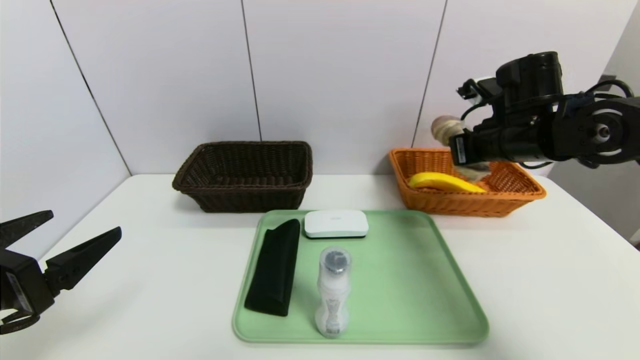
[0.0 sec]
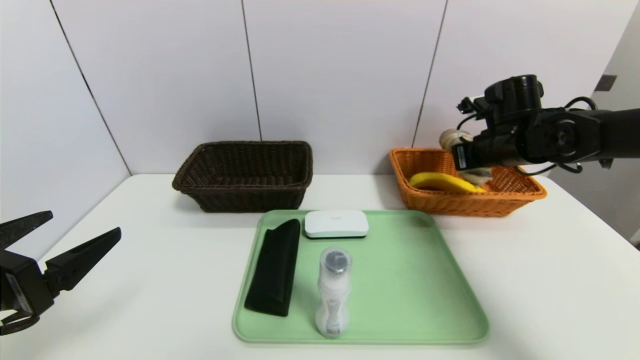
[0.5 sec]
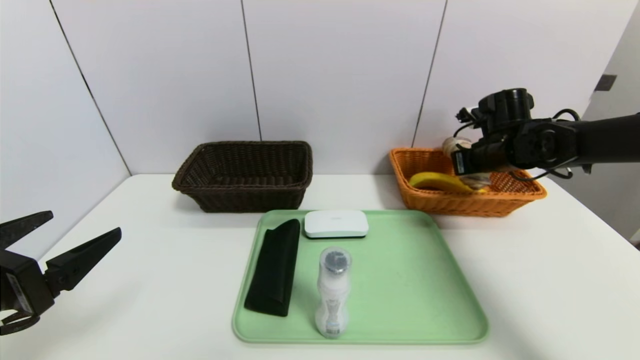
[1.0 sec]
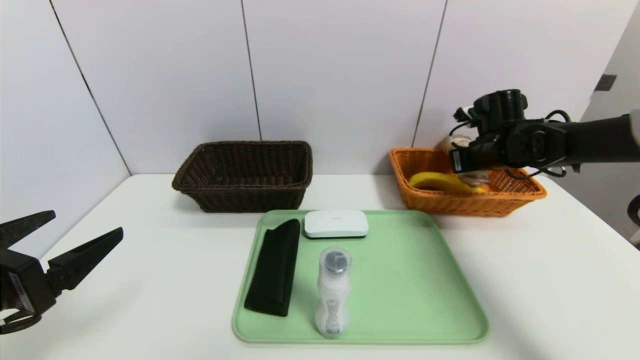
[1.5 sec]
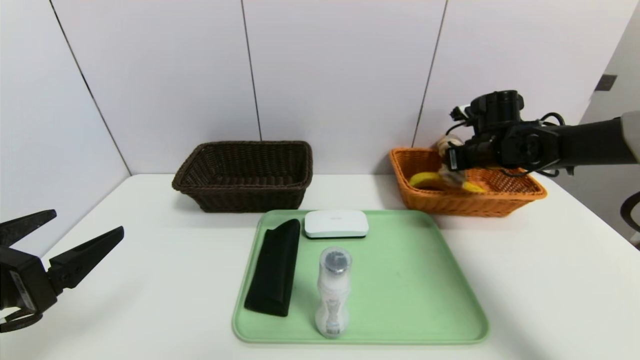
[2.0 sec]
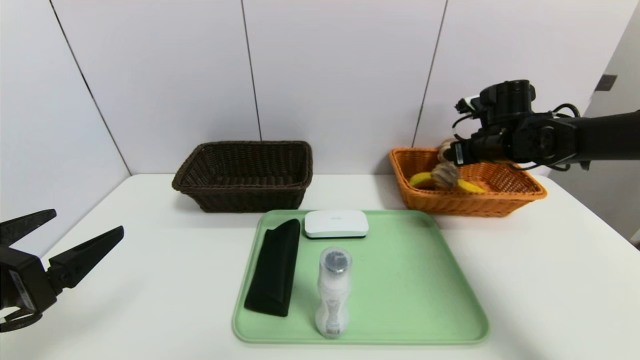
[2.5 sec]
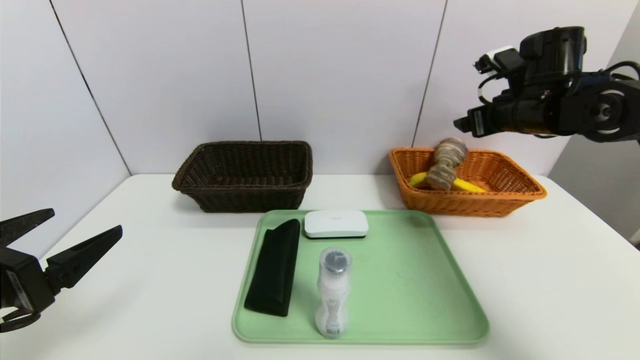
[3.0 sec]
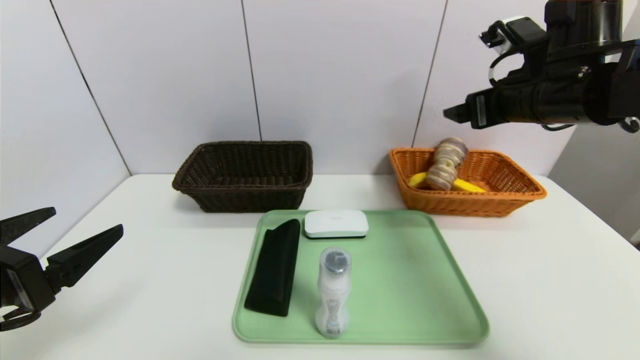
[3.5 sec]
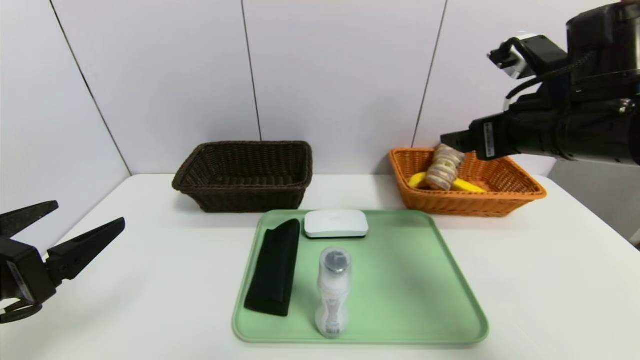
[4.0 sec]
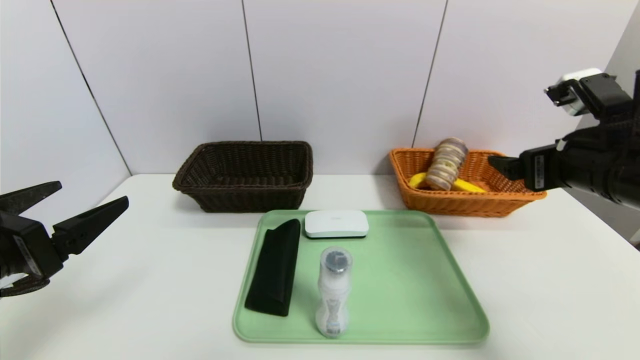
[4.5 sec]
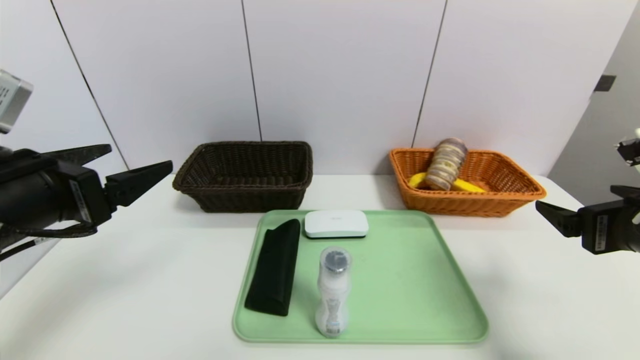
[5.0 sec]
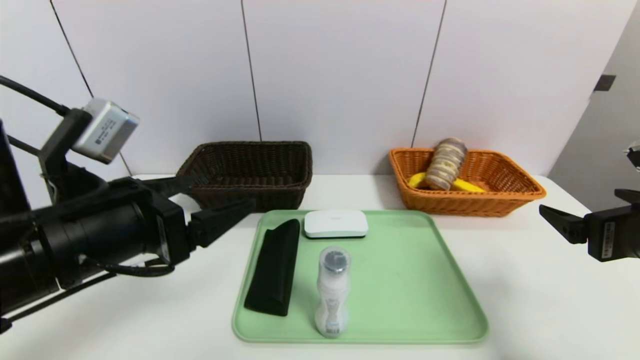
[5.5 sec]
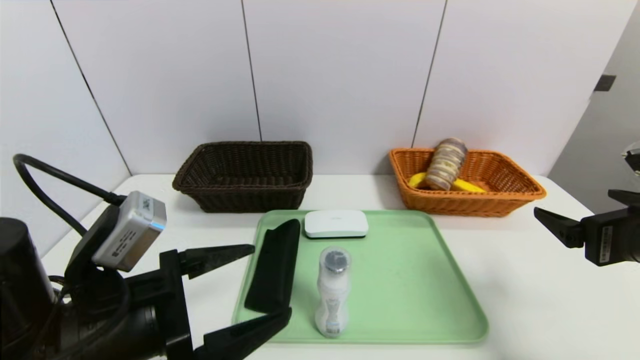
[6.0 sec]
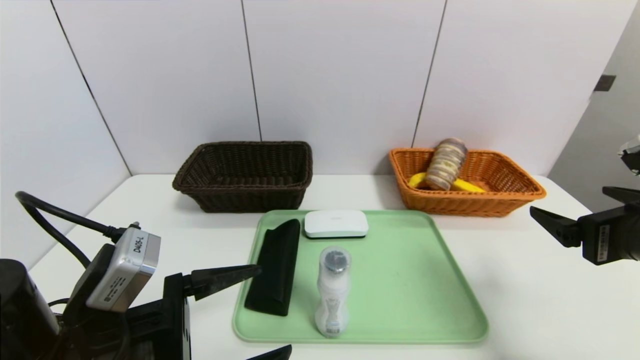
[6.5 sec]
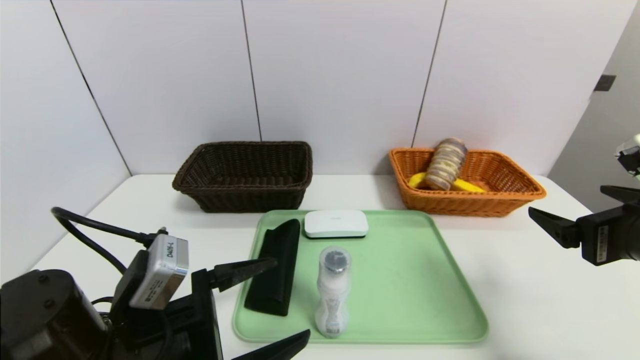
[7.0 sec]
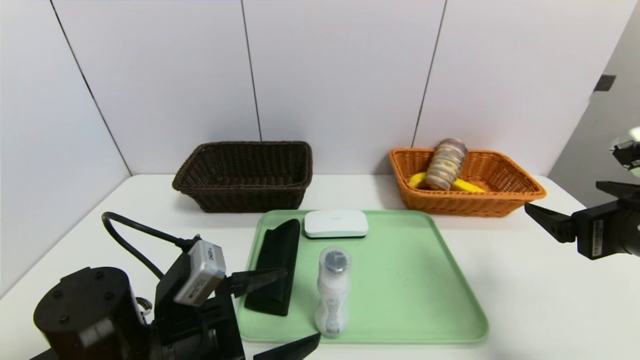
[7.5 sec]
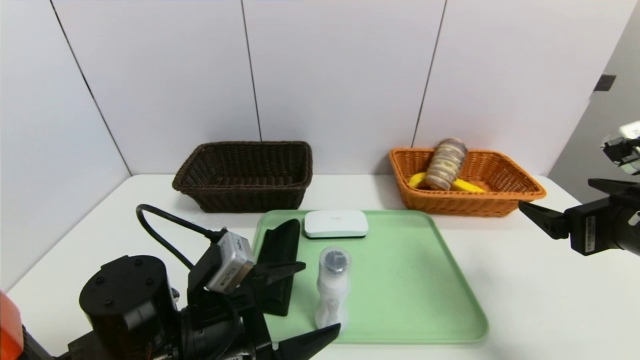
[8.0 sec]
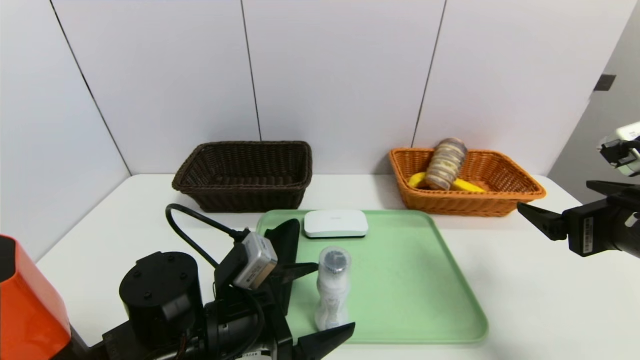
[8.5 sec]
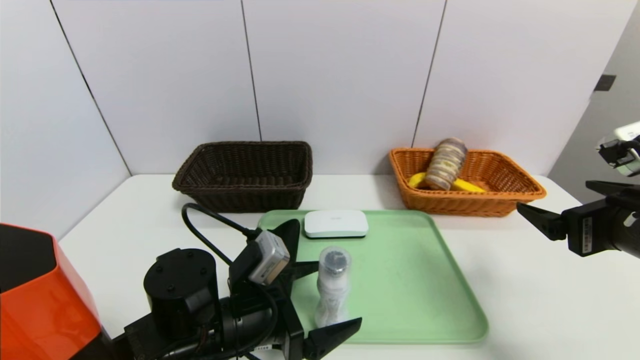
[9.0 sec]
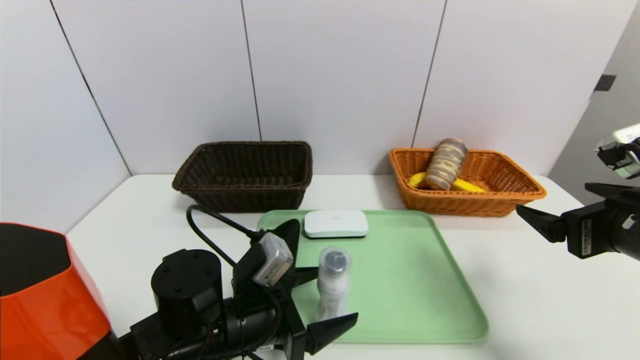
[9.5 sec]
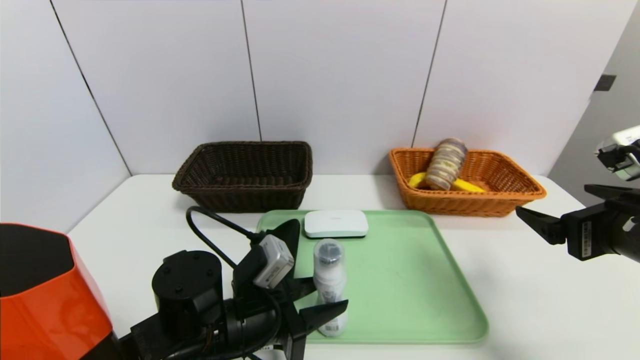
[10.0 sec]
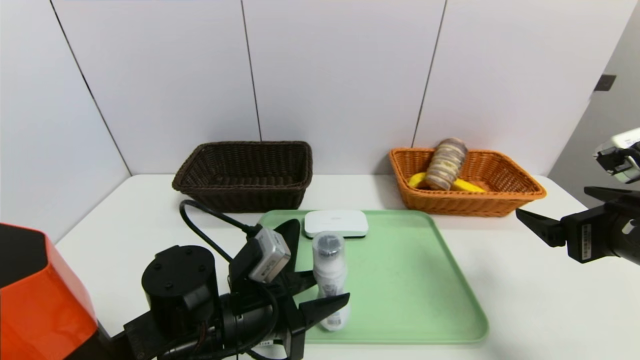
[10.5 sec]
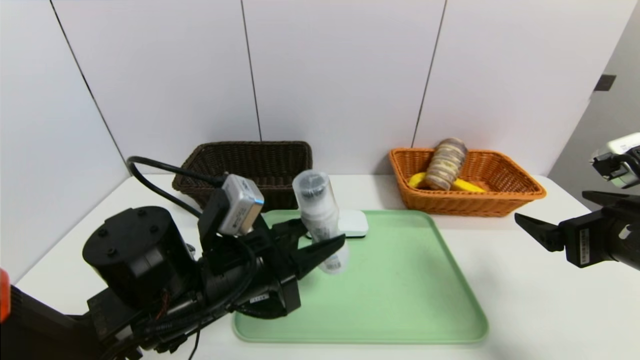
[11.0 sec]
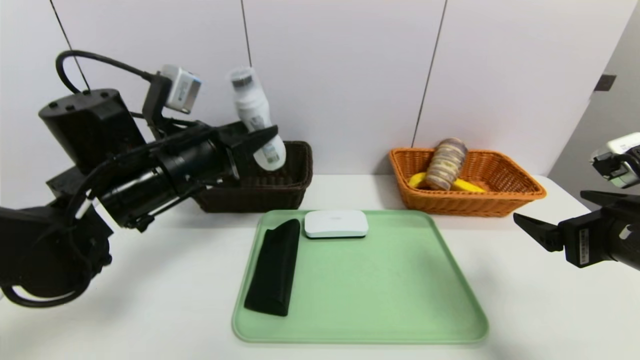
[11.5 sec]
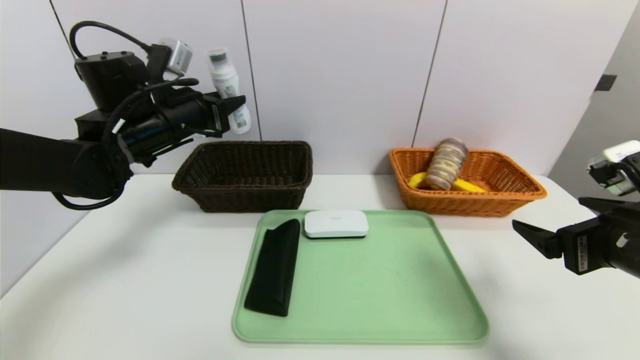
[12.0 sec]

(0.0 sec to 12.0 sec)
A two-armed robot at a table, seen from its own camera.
Task of the whole recording: place the food in the right basket with the right gripper, and place the non food items in the left basket with the left gripper.
Step, 0.0 sec - 3.0 sec: Grasp the long bread and put it in the right basket.
0.0 sec - 2.0 sec: The right gripper shifts roughly 10 cm forward and downward, and opens up.
2.0 sec - 4.0 sec: The right gripper moves backward and upward, some 20 cm.
4.0 sec - 6.0 sec: The left gripper shifts about 10 cm to the right, while the right gripper moves backward, downward and to the right, some 15 cm.
6.0 sec - 8.0 sec: The left gripper moves downward, some 5 cm.
8.0 sec - 10.0 sec: The left gripper closes up.
10.0 sec - 12.0 sec: The left gripper heads upward, forward and to the left, covering some 25 cm.

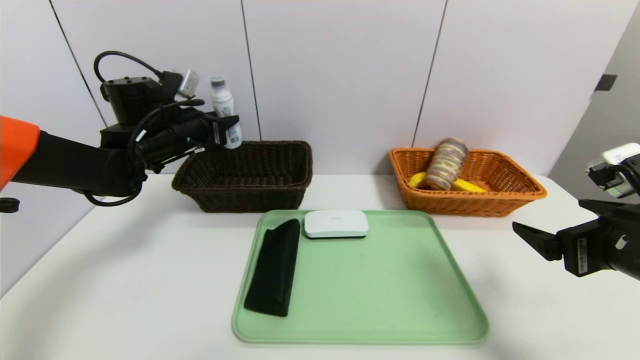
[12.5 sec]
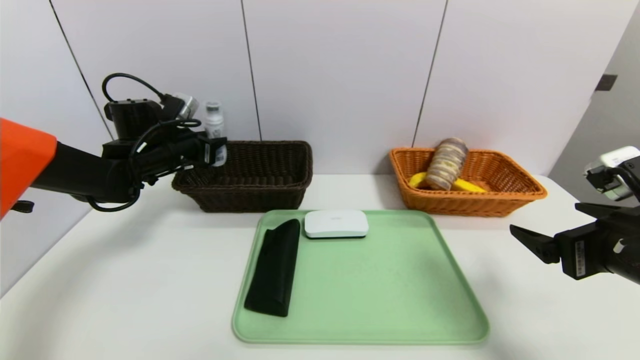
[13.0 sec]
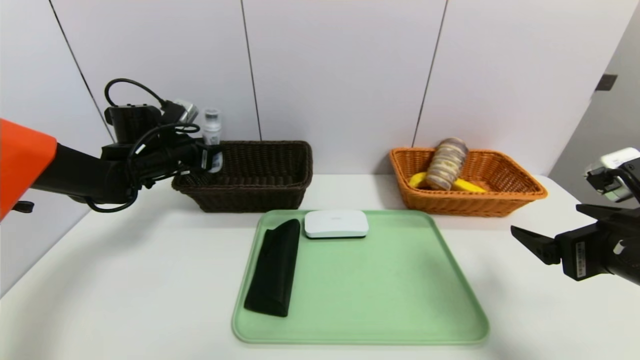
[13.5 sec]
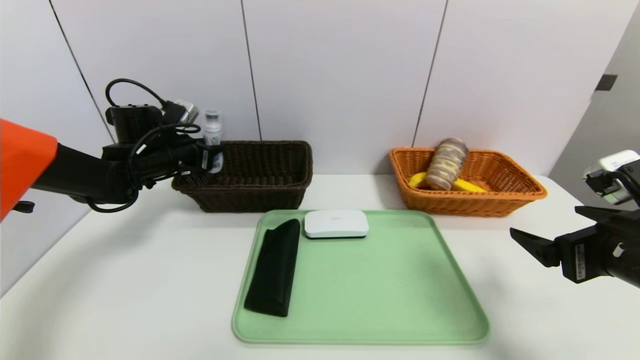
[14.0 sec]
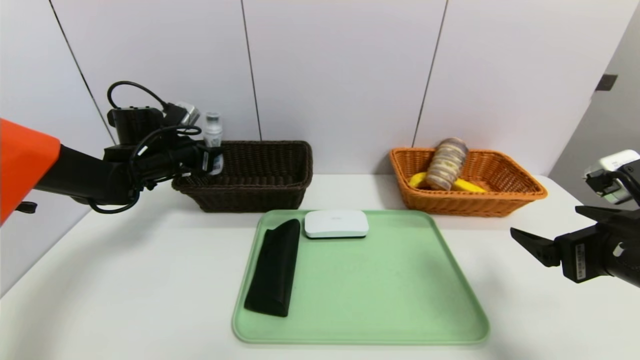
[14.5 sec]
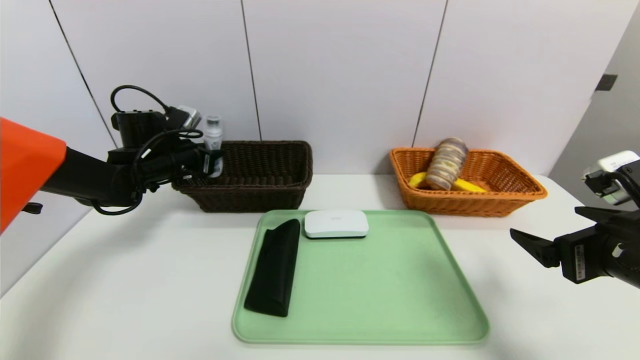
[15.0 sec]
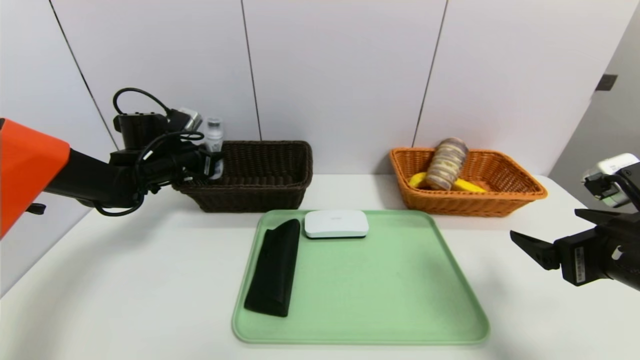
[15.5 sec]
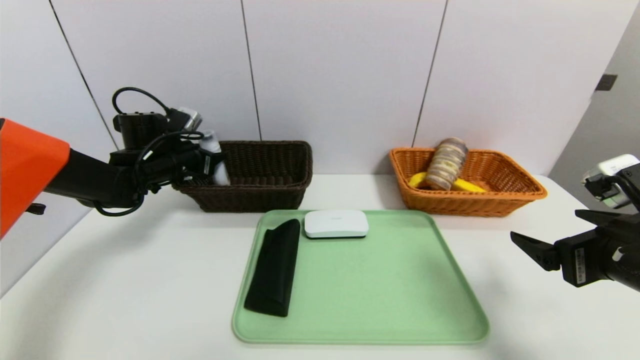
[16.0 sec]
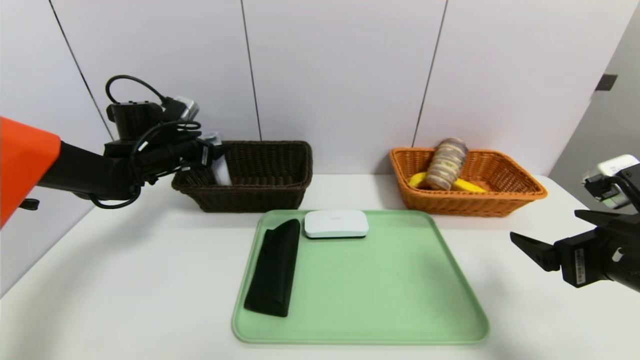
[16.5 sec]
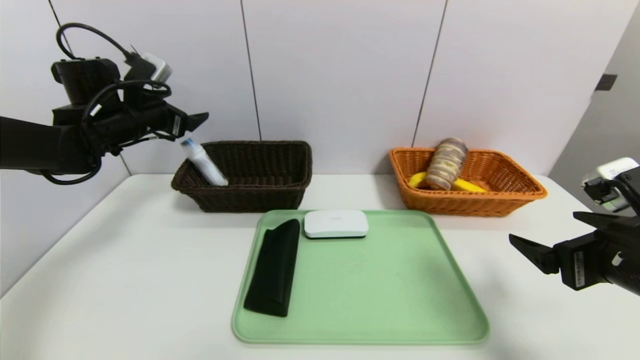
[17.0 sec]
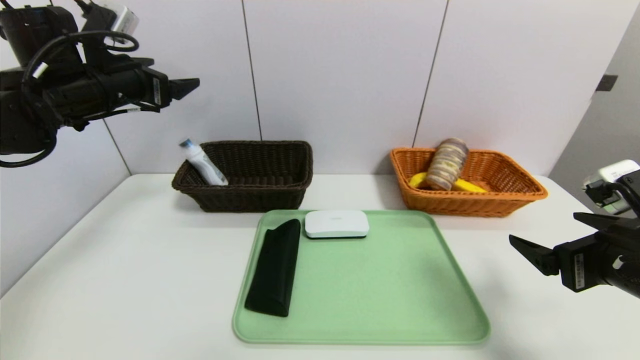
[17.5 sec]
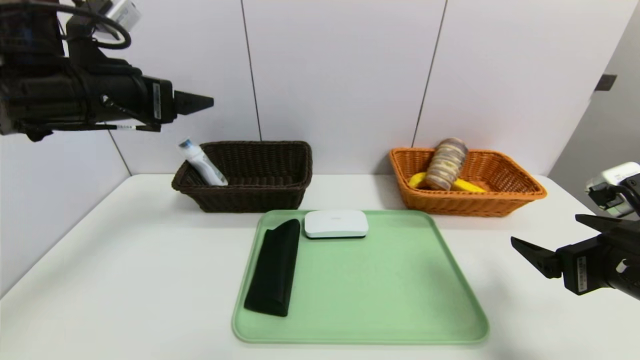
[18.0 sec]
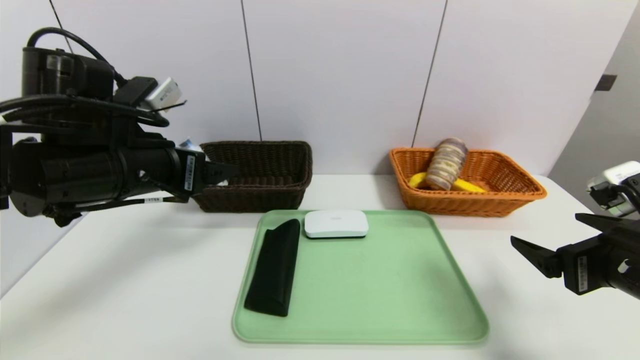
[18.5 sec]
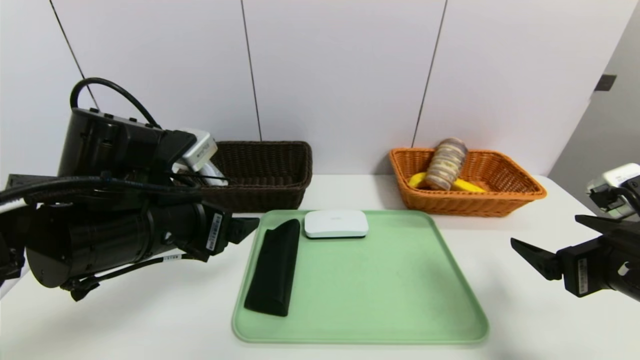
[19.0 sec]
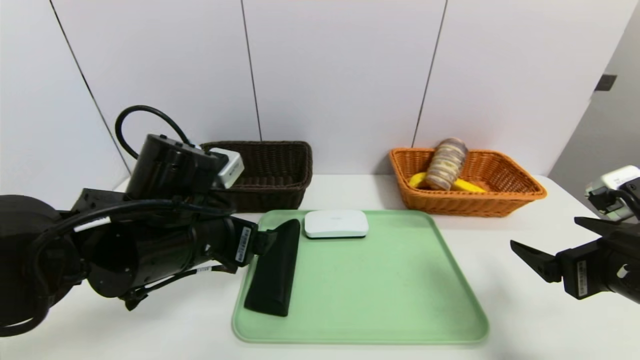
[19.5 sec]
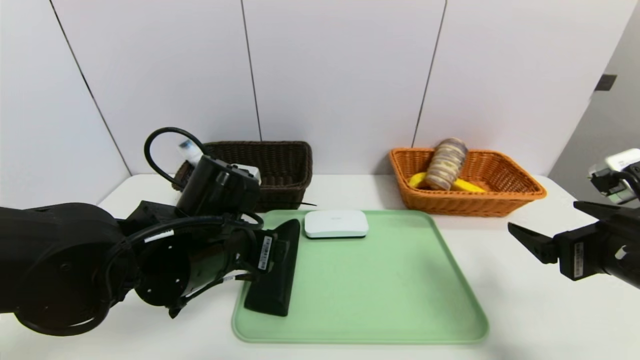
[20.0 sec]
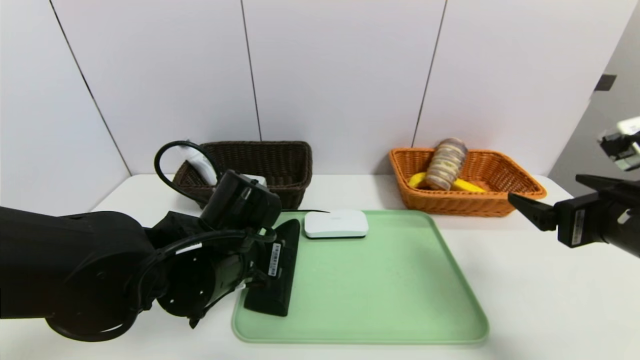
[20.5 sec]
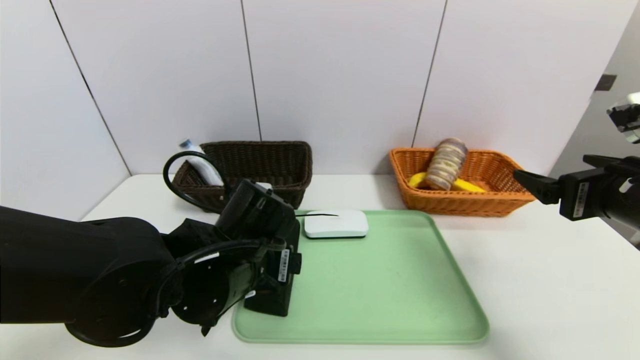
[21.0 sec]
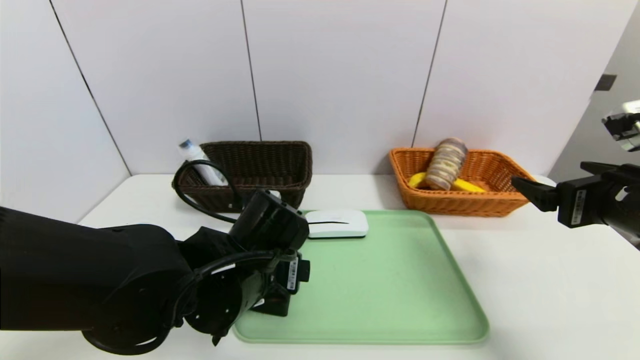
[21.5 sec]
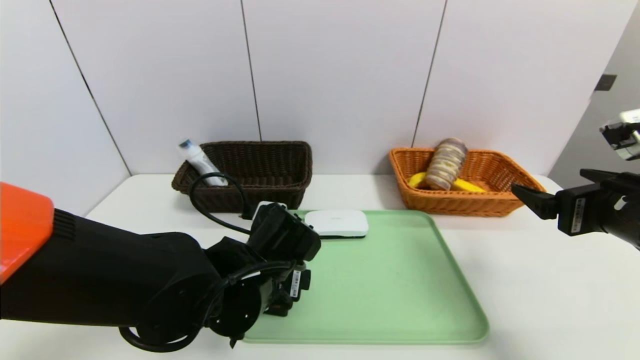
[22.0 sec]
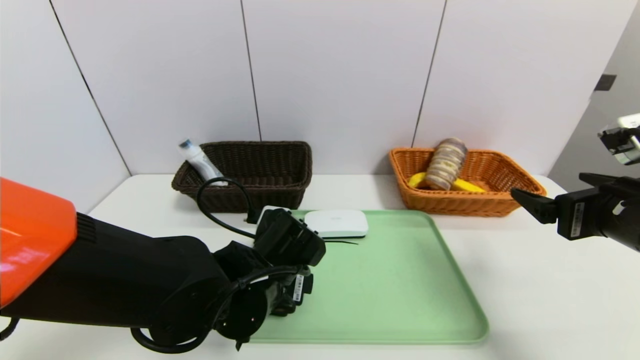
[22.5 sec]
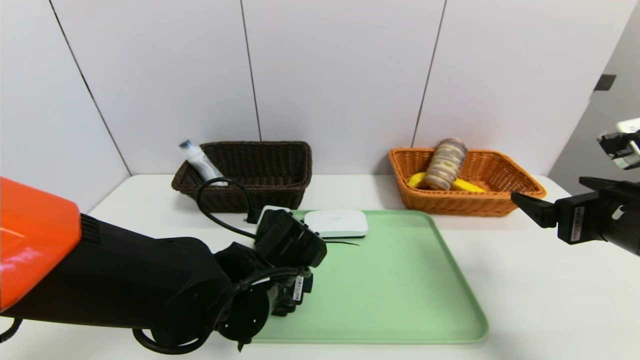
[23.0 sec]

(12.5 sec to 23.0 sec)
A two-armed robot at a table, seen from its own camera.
Task of the whole recording: place the food in the right basket with the right gripper, and place the non food items in the left basket with the left gripper.
Step, 12.5 sec - 16.5 sec: Grasp the washing liquid and put it in the left basket.
12.5 sec - 14.5 sec: The left gripper shifts about 5 cm downward.
14.5 sec - 16.5 sec: The left gripper opens.
16.5 sec - 19.0 sec: The left gripper heads backward and to the right, covering some 25 cm.
19.0 sec - 21.0 sec: The right gripper shifts by about 5 cm. Meanwhile the left gripper is displaced to the right and downward by approximately 10 cm.
21.0 sec - 23.0 sec: The grippers move only a little.
